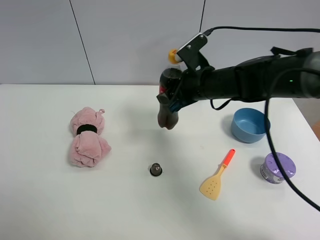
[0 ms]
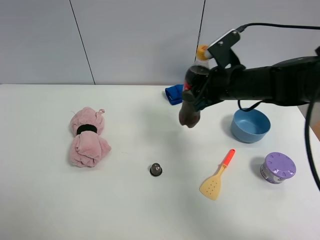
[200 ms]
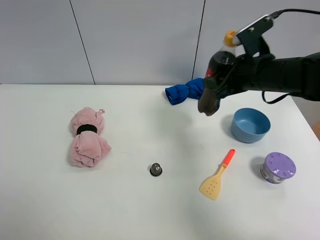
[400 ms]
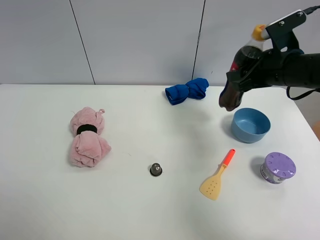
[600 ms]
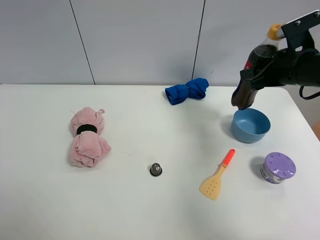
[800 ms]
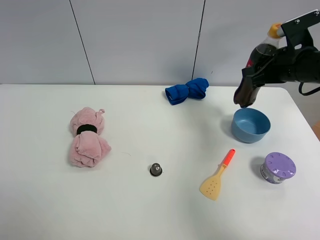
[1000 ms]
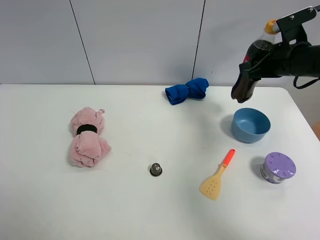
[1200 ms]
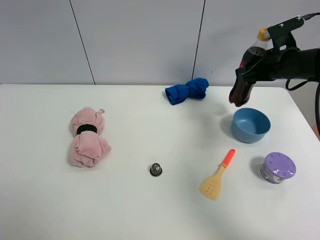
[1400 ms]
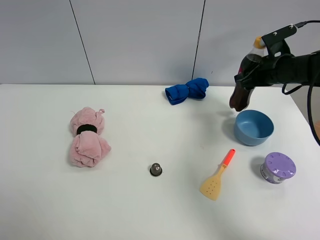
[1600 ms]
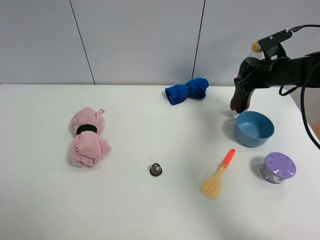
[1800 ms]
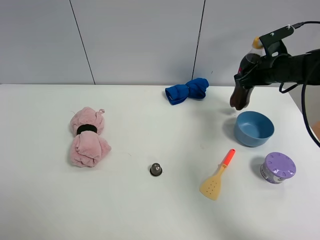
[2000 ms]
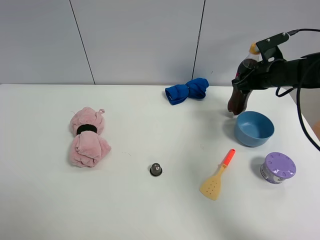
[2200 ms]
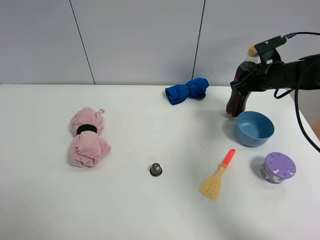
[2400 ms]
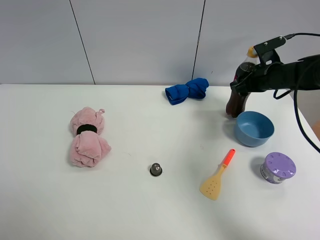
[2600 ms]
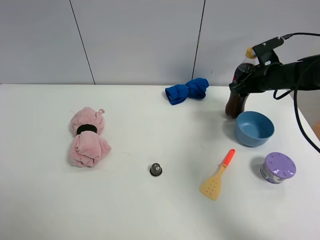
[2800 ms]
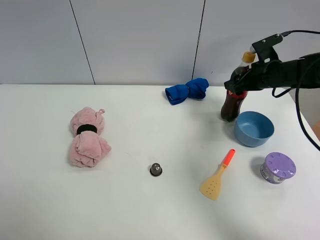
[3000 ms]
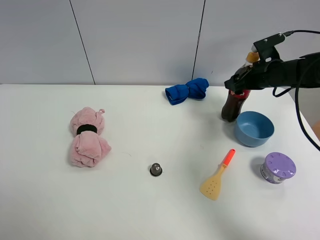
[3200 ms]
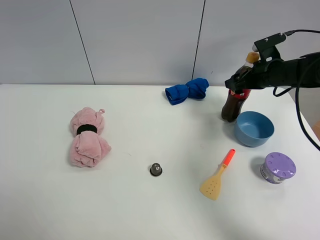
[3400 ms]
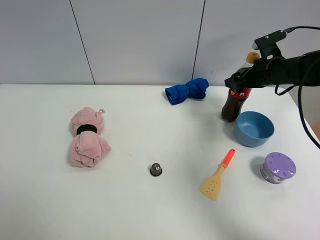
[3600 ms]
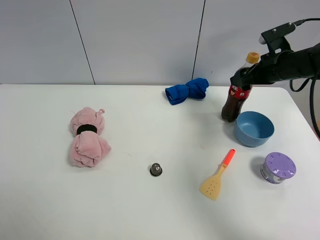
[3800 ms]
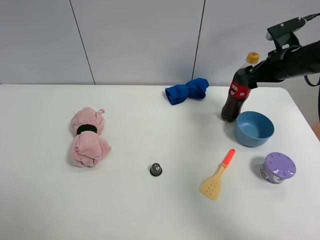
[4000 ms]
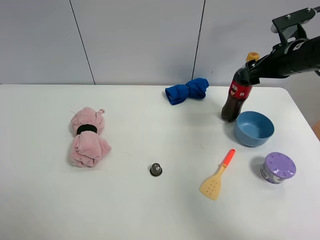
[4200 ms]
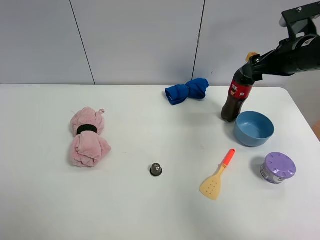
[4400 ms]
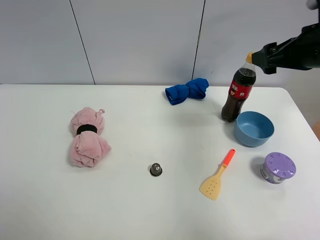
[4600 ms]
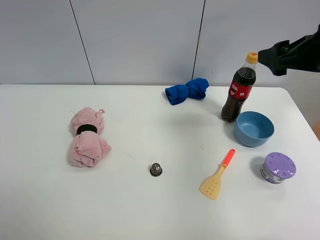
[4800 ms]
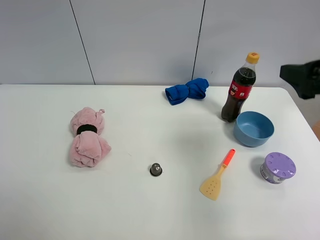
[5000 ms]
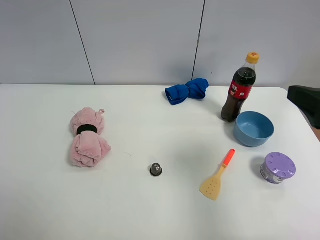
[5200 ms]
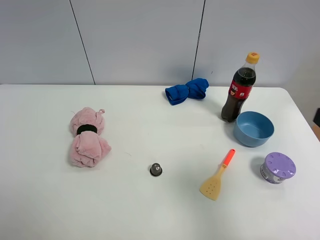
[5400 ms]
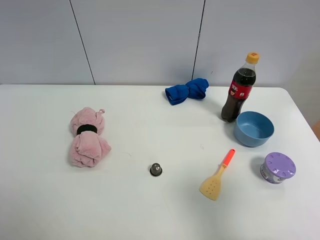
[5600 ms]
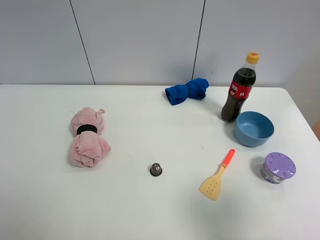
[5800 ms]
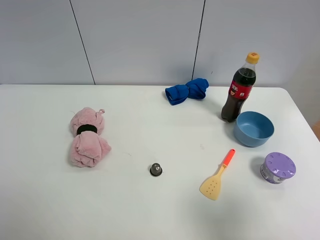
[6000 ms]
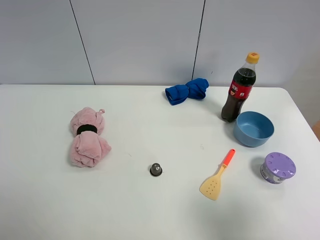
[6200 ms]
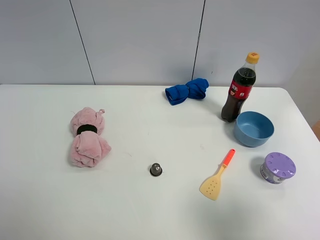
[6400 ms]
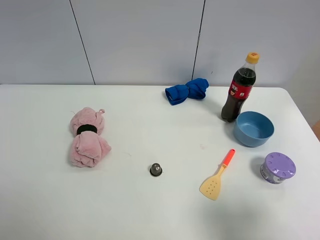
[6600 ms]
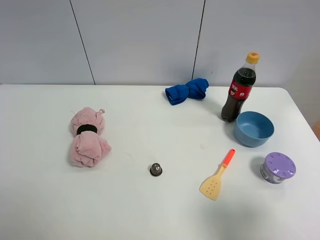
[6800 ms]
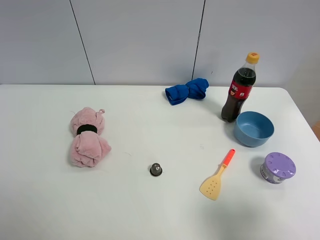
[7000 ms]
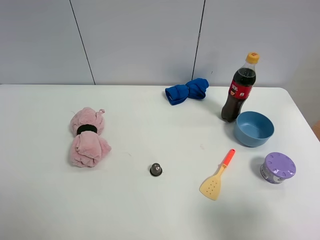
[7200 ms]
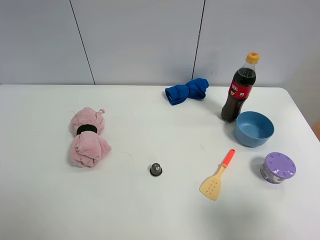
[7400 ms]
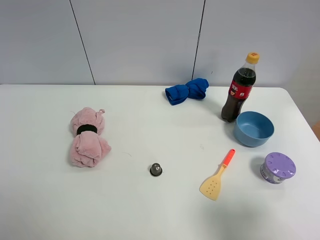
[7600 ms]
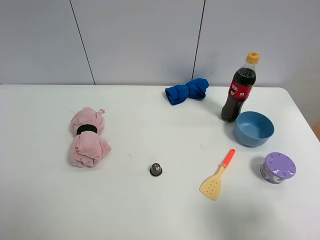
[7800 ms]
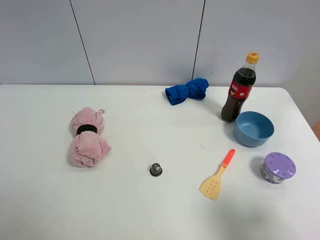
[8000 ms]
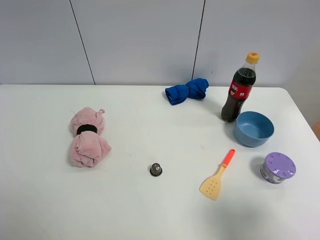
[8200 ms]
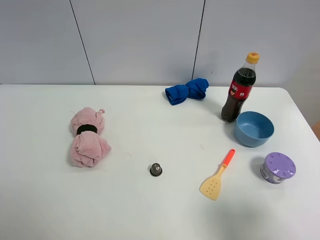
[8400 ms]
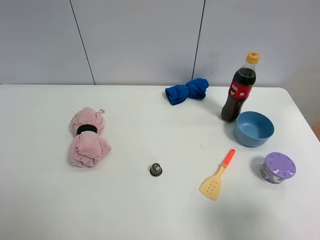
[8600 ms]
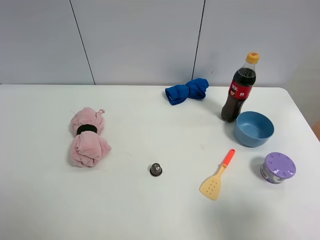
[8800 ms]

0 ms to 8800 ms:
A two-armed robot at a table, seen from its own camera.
Task of the whole recording: the gripper move the object.
Step, 0 ms to 3800 ms: Place the coke on the table with the right gripper.
0 ms to 1400 ms: The right gripper goes about 15 cm to the right.
1400 ms to 3000 ms: The right gripper opens up.
3000 ms to 4400 ms: The right gripper is displaced upward and backward by roughly 10 cm.
4400 ms to 5800 ms: The right gripper is displaced backward by approximately 30 cm.
5800 ms to 7400 ms: The grippers move only a little.

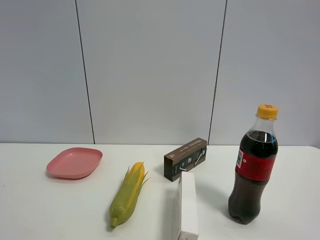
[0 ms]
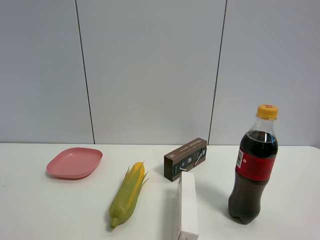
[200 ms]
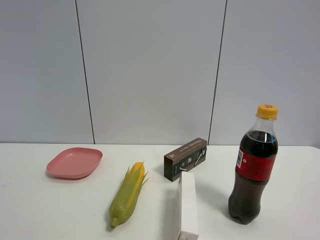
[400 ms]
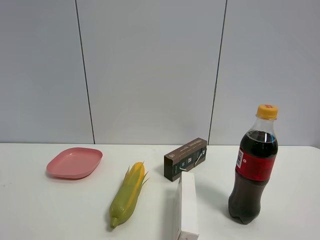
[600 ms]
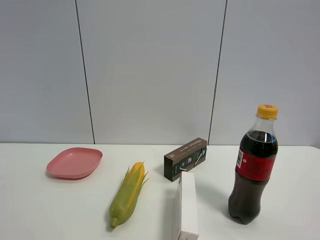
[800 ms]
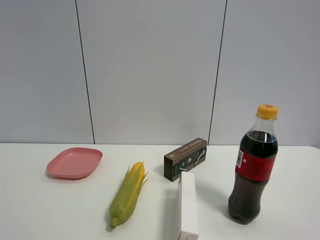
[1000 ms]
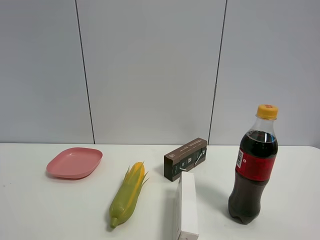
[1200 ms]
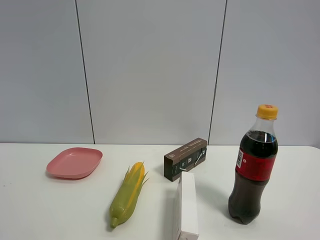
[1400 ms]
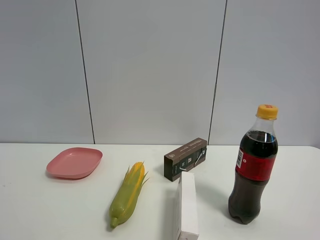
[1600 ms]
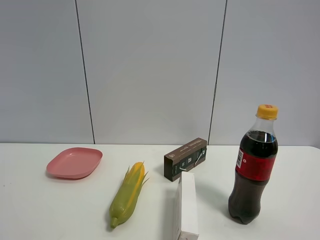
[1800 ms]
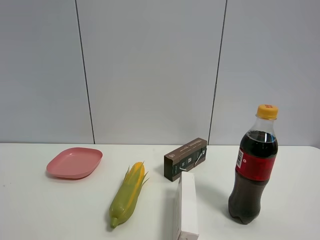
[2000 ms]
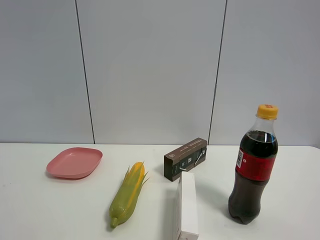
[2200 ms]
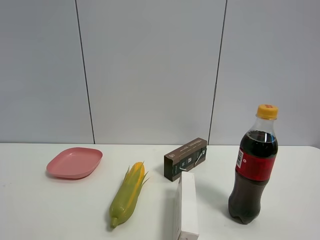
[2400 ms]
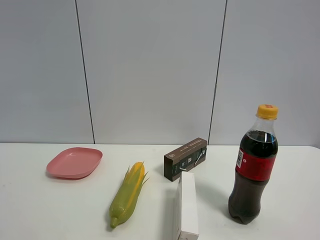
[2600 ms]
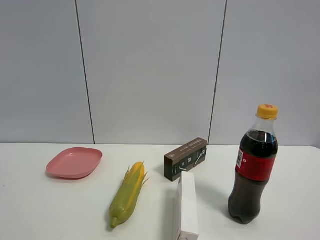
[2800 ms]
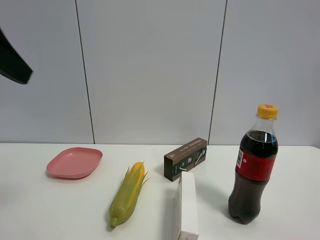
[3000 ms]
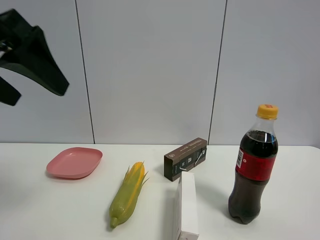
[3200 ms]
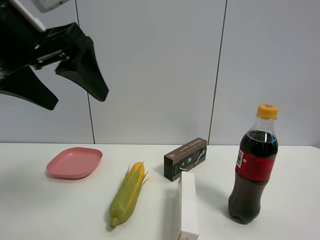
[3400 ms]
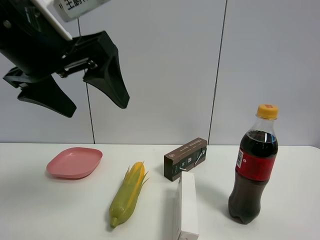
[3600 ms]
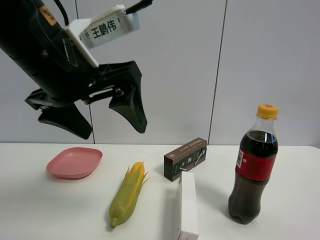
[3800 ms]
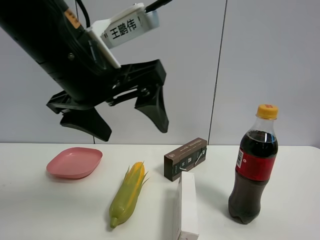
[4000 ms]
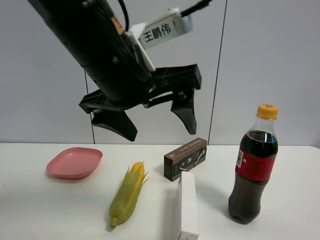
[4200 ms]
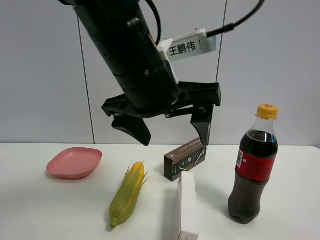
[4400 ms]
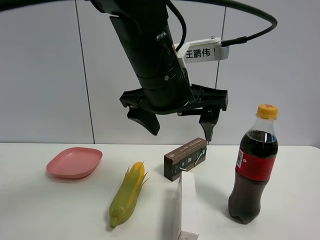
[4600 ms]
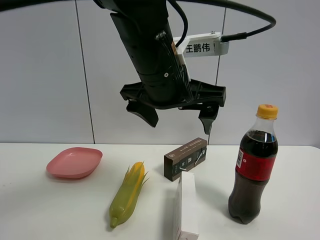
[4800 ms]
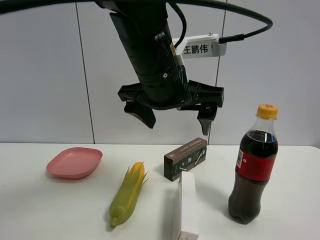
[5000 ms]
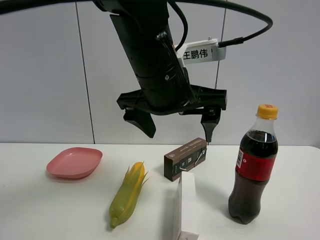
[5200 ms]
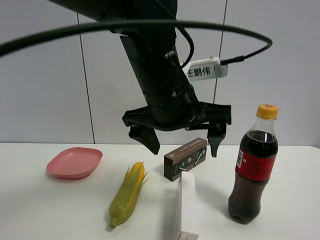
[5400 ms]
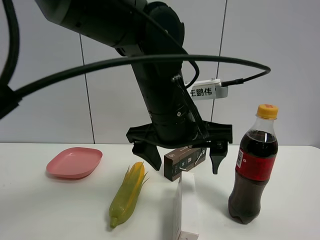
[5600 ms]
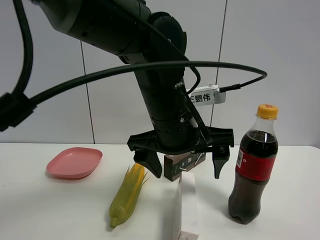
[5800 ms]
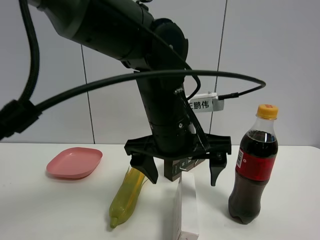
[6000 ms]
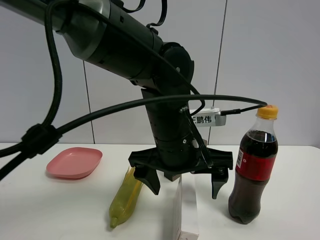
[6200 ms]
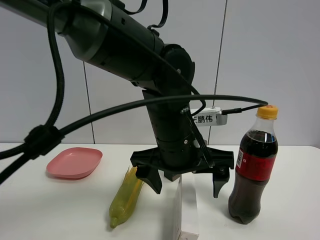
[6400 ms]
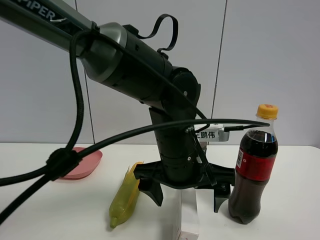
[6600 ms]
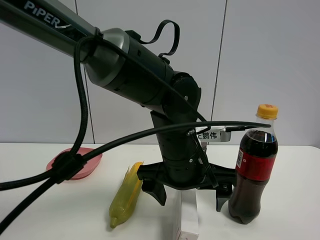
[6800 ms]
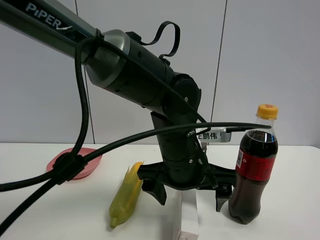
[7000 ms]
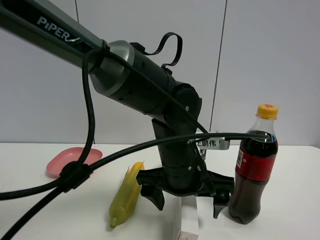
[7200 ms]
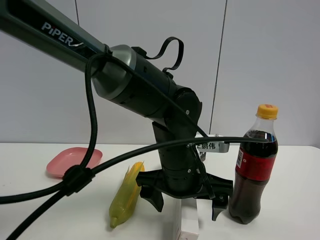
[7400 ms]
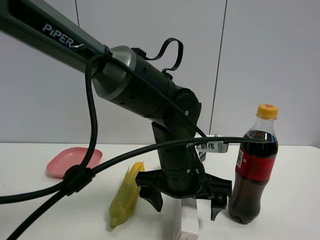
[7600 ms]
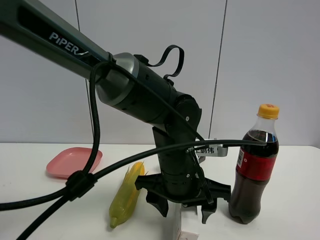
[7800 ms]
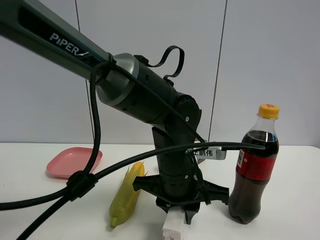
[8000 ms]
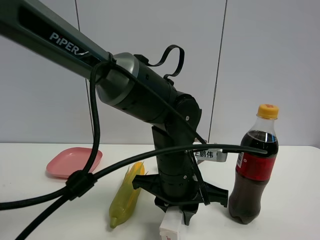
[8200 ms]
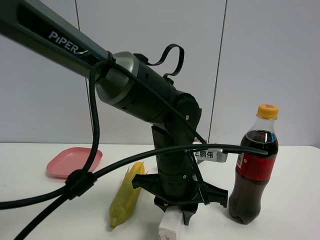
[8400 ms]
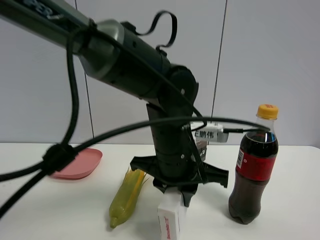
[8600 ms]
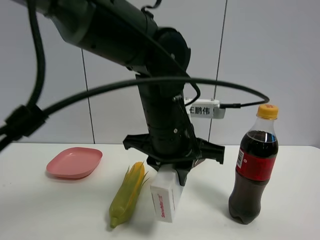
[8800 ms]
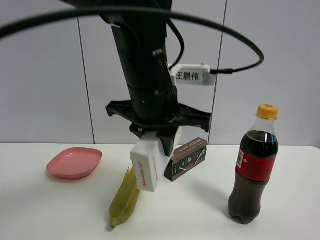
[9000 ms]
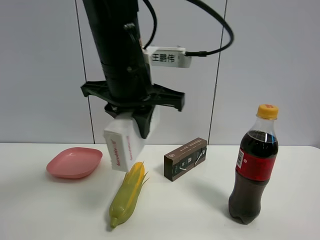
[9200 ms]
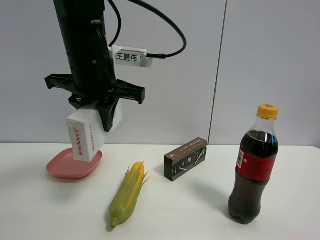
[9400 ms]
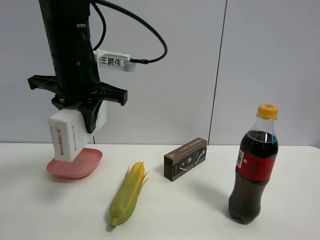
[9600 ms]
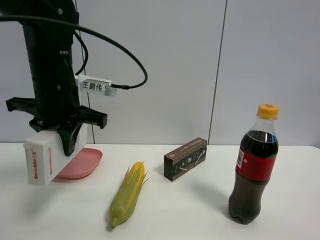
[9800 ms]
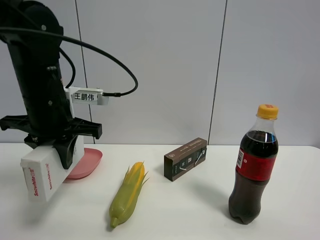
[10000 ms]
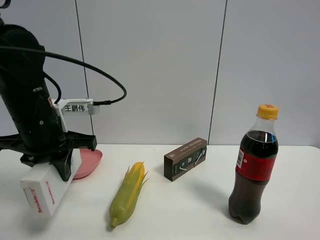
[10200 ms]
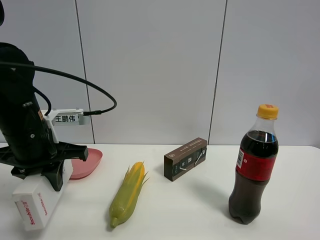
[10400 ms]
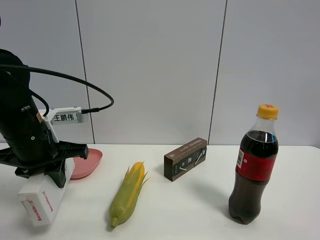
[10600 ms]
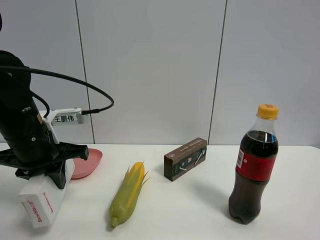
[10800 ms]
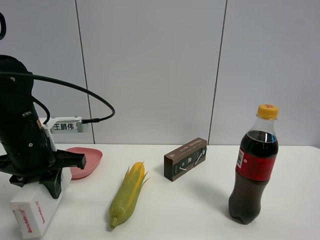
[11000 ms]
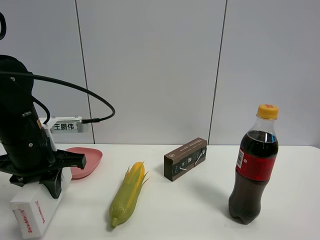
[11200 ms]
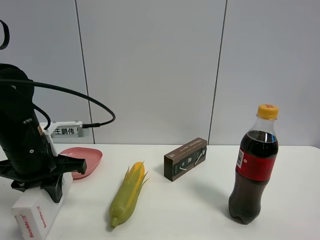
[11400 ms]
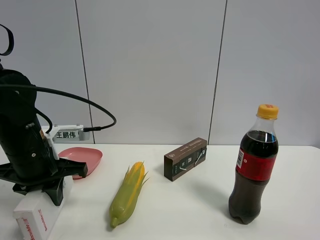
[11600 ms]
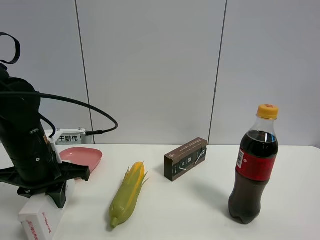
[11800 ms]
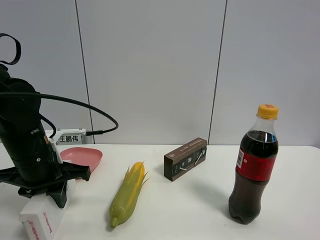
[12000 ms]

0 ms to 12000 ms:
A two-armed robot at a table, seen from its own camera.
Task of the whole recording: the gripper move the object.
Step, 0 ms to 8000 ms: Grasp the USB box with the left gripper.
1600 ms to 3000 ms: The left gripper is displaced forward by approximately 20 cm.
3000 ms to 4400 ms: The left gripper heads to the right, covering roughly 25 cm.
4400 ms to 6000 ms: The left gripper is displaced downward by roughly 10 cm.
6000 ms to 7600 ms: The left gripper heads downward, covering some 5 cm.
7600 ms to 9000 ms: The left gripper is displaced upward by some 15 cm, and closes up.
9000 ms to 10400 ms: The left gripper shifts some 20 cm to the left and downward.
10400 ms to 12000 ms: The grippers make only small movements.

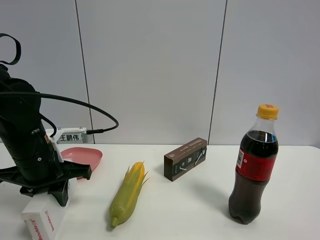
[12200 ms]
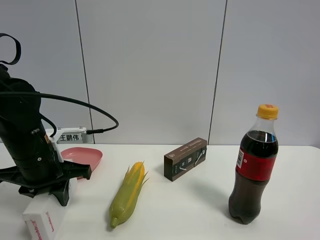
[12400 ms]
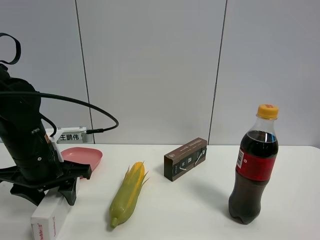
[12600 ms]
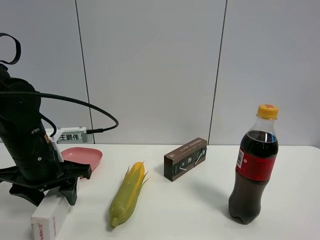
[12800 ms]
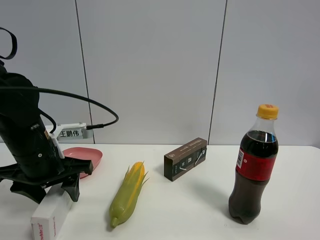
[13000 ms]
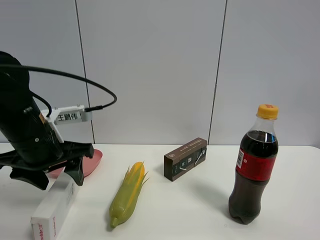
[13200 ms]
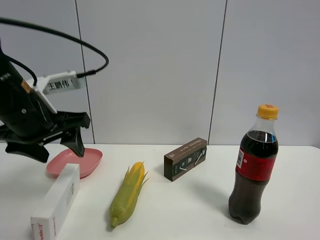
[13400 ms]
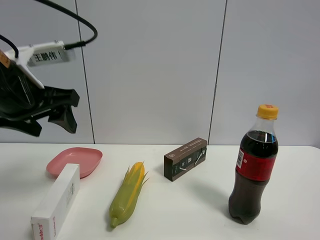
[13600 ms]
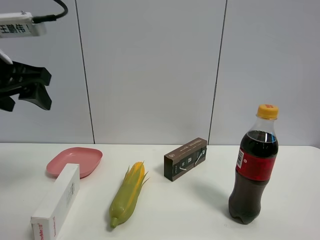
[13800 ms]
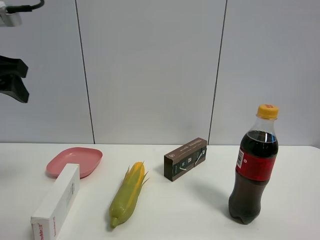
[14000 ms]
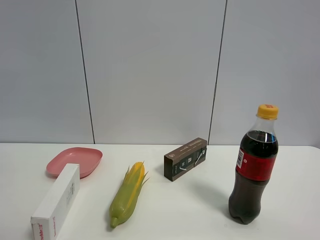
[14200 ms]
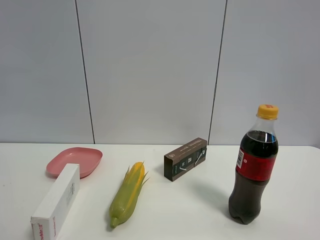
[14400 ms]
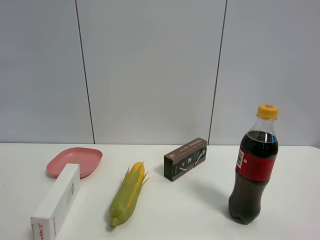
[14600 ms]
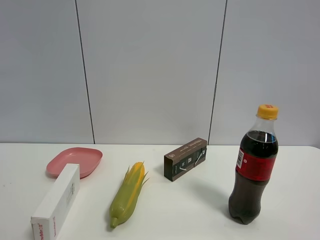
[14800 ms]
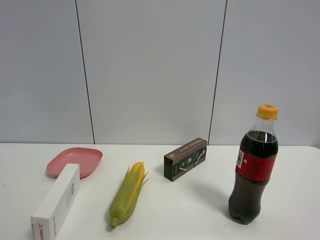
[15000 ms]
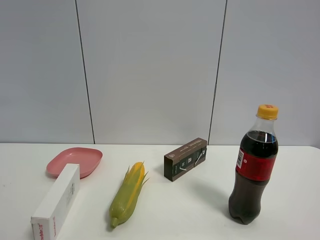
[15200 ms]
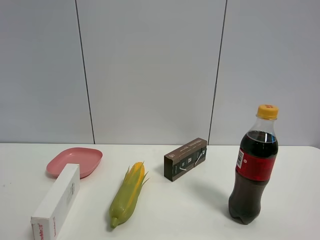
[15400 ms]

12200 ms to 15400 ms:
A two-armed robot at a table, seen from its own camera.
Task of the whole recording: the gripper move the object.
12200 ms to 13800 ms: The left gripper goes roughly 15 cm upward, and opens.
13800 ms to 15400 ms: The left gripper shifts about 25 cm backward.
